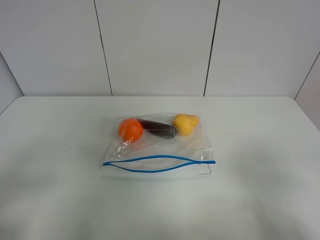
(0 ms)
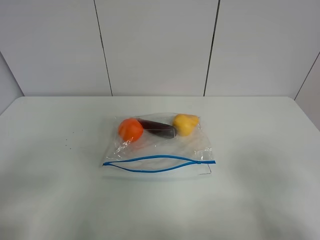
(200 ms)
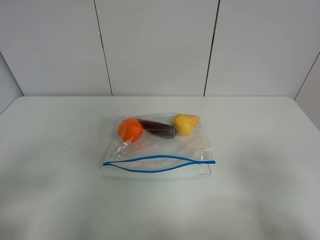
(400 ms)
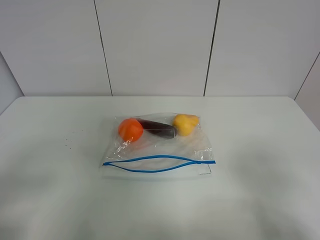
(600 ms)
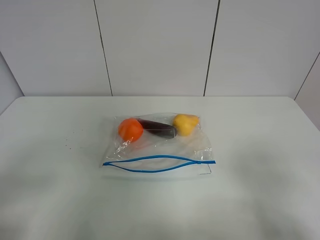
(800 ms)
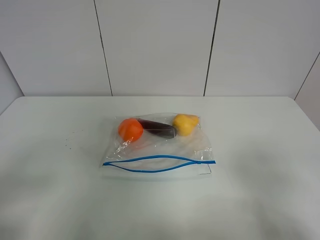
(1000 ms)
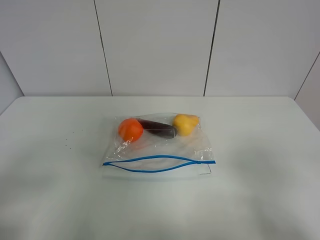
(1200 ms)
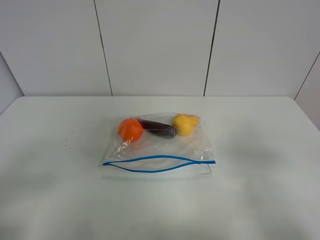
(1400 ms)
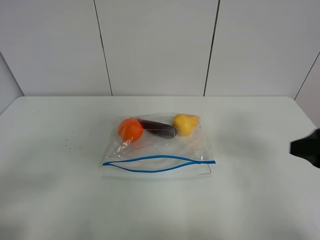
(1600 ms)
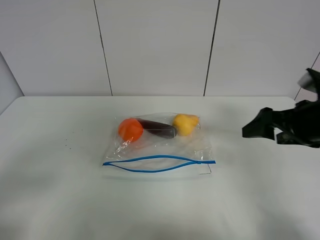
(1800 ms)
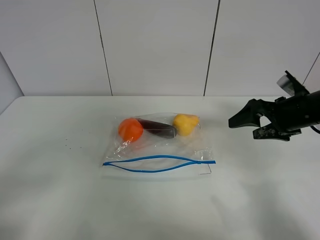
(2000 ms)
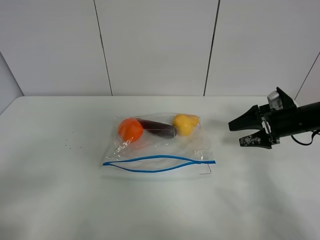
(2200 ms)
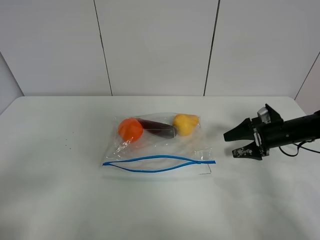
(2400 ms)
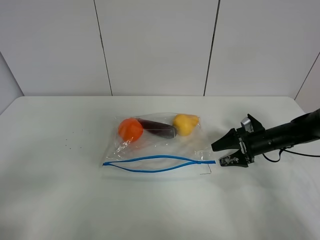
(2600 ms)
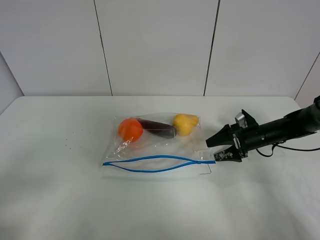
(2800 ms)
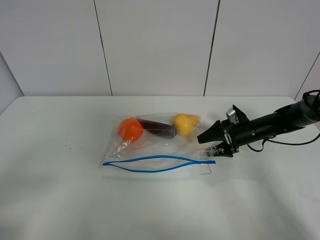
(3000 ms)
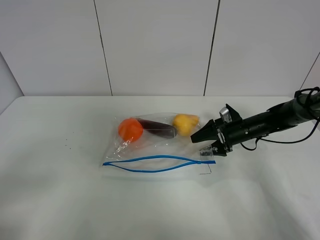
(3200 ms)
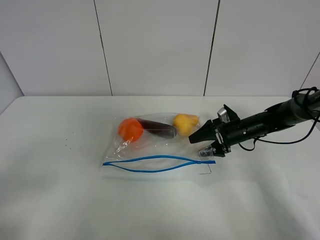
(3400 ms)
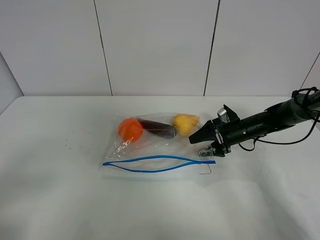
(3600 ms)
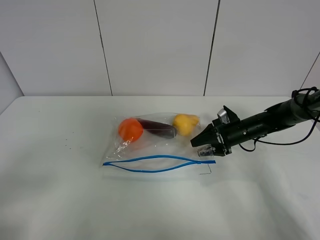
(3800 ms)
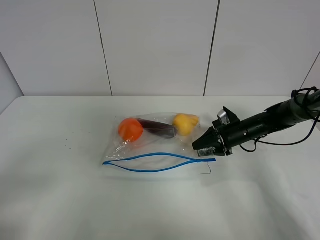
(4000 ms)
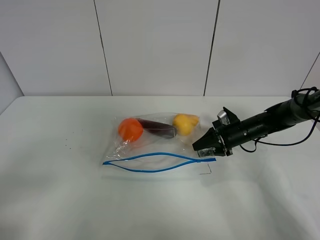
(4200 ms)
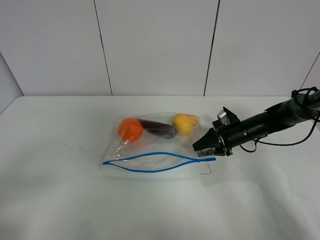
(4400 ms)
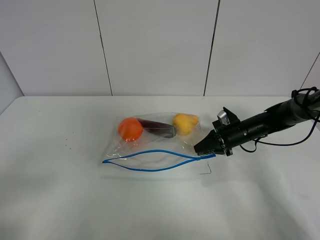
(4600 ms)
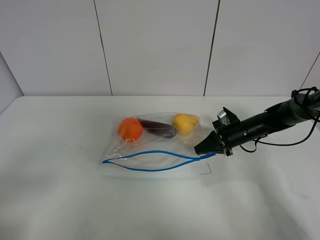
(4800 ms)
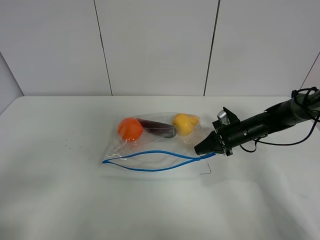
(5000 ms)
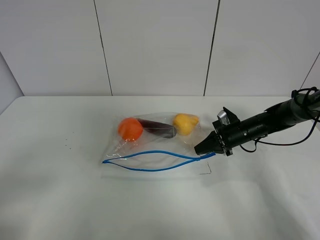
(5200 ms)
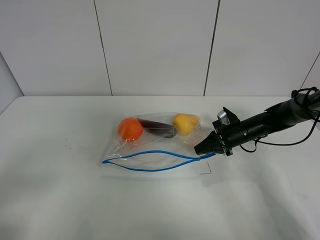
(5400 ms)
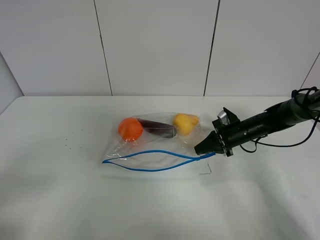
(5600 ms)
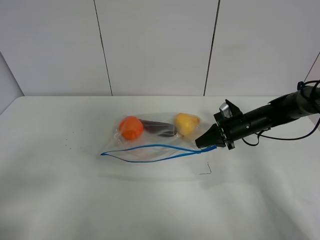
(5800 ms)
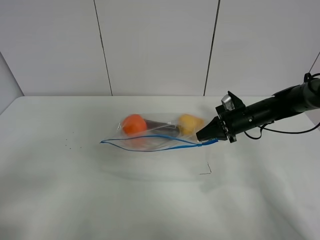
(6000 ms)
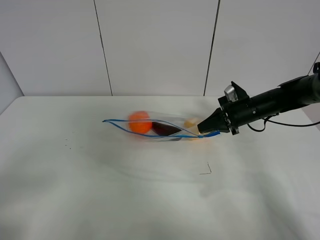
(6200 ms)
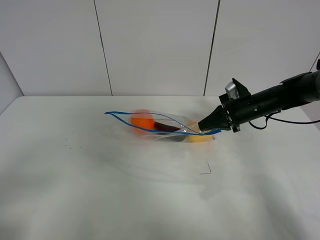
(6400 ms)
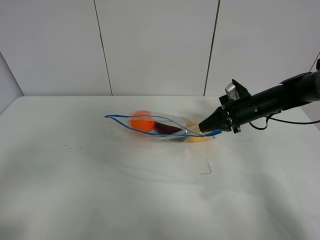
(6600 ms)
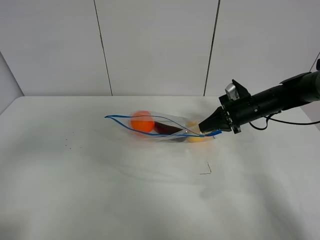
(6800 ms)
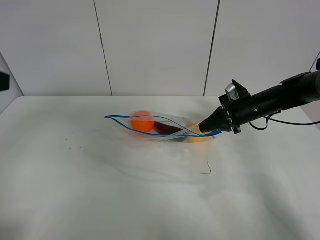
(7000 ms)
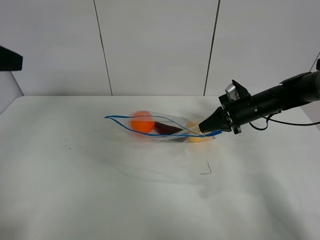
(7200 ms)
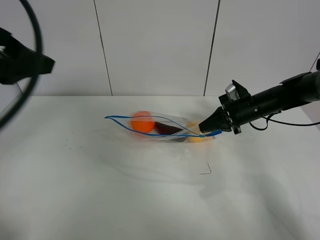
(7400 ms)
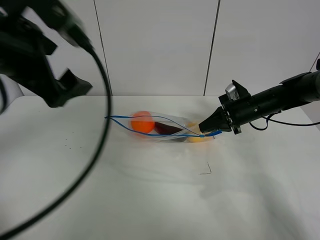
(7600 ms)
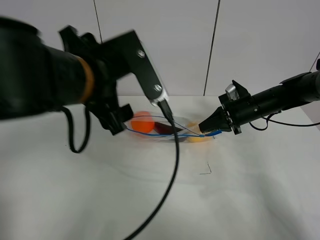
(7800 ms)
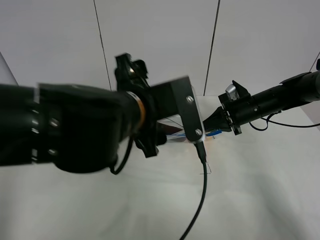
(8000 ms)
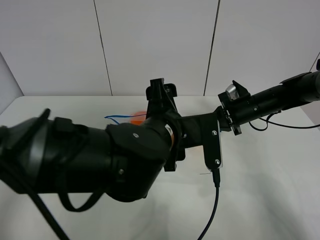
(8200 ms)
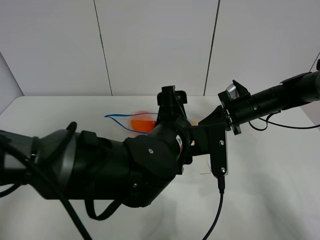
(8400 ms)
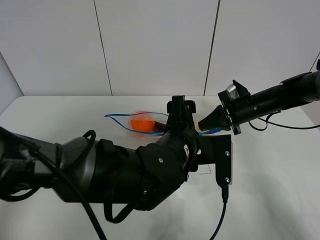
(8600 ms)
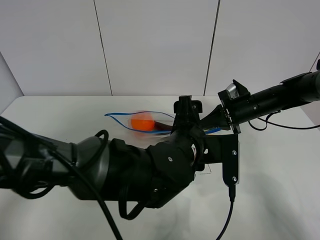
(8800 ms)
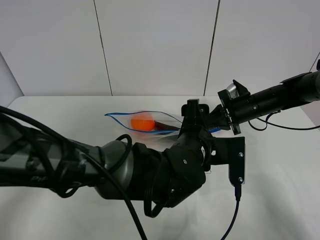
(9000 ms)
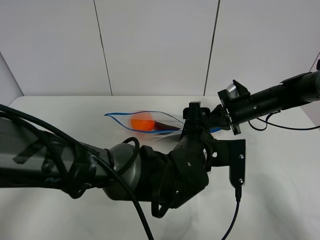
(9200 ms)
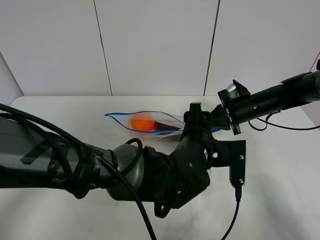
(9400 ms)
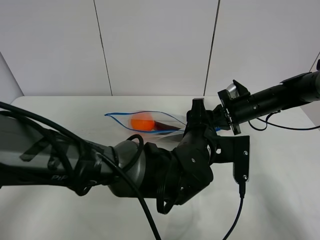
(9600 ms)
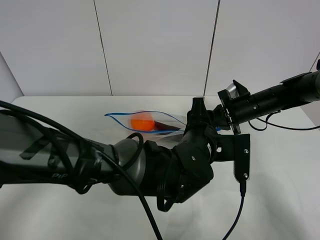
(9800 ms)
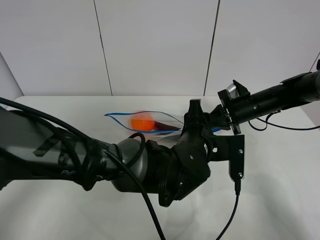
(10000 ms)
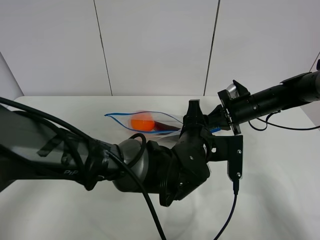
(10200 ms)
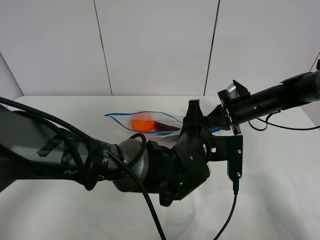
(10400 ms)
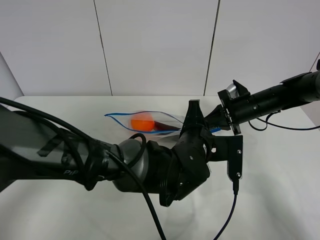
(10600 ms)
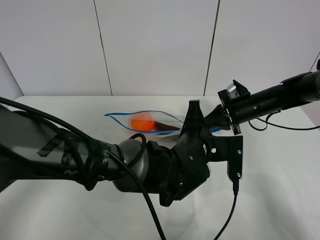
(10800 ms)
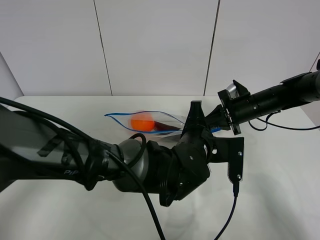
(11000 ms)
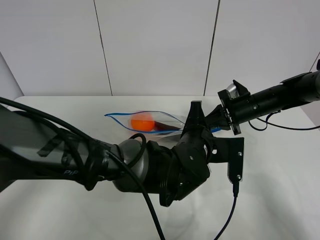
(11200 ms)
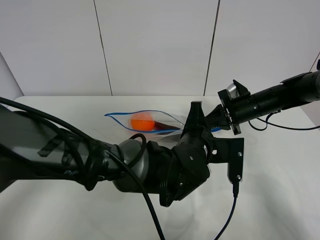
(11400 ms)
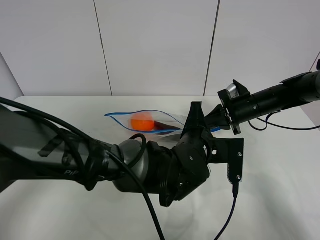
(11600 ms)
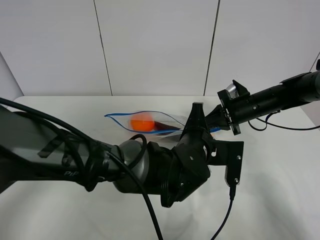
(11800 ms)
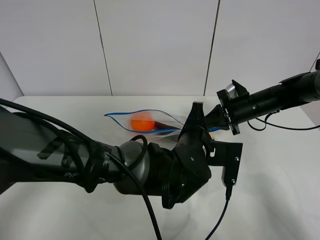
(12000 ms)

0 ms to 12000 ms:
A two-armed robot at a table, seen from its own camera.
Step, 0 ms to 4800 ms: Grasp the fruit bag with right gripper.
Step, 5000 ms to 6400 ms: Lift the fruit bag with your right gripper.
0 ms to 1600 ms: The right gripper shifts some 15 cm forward.
1600 ms to 3000 ms: The right gripper heads forward and downward, covering approximately 30 cm.
3000 ms to 4400 ms: The right gripper closes.
4400 ms to 6000 ms: The right gripper travels upward by about 5 cm, and closes its fingers.
6000 ms to 7600 ms: The left gripper heads forward, to the right and upward, covering roughly 25 cm.
7600 ms to 9000 ms: The left gripper travels to the right and downward by approximately 30 cm.
9000 ms to 10400 ms: The left gripper closes.
10400 ms to 12000 ms: The left gripper closes its fingers.

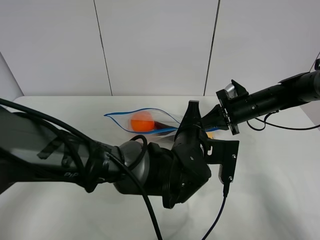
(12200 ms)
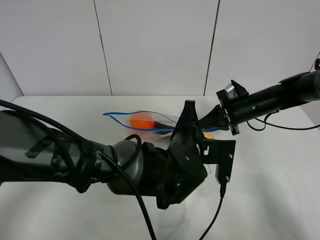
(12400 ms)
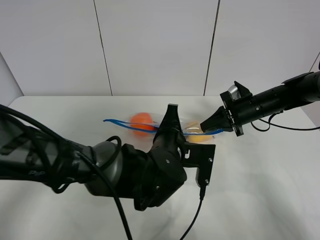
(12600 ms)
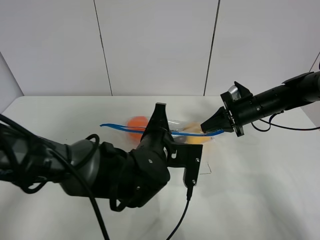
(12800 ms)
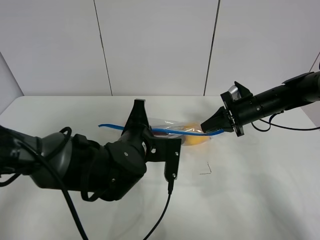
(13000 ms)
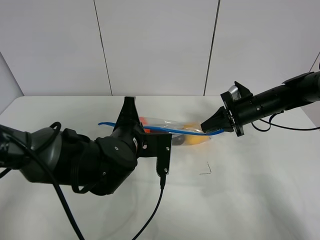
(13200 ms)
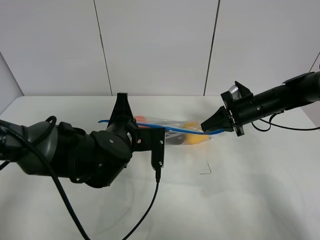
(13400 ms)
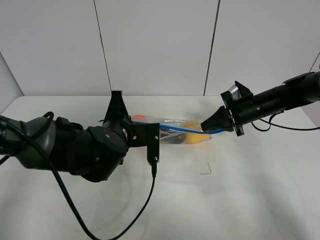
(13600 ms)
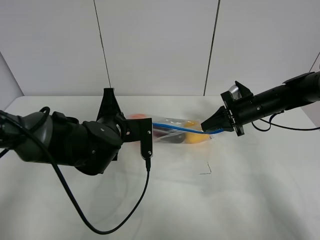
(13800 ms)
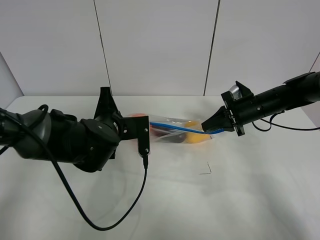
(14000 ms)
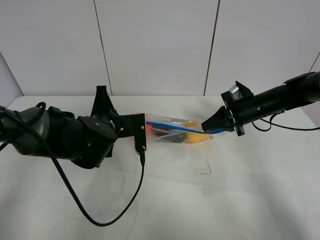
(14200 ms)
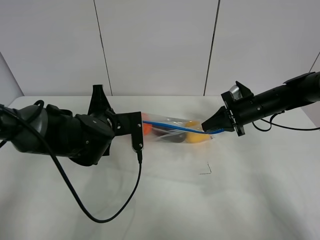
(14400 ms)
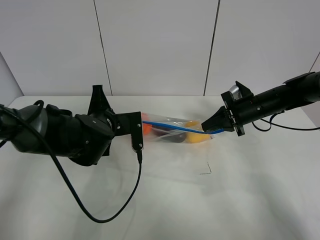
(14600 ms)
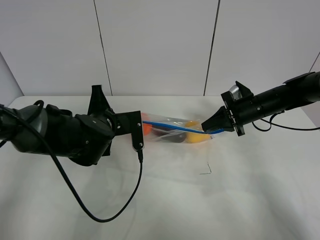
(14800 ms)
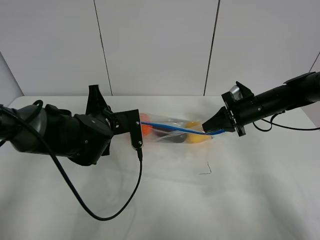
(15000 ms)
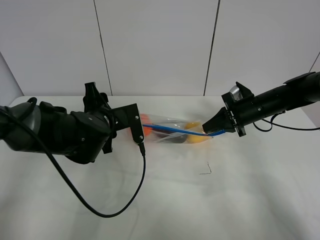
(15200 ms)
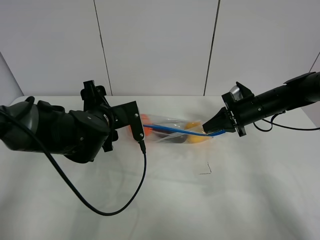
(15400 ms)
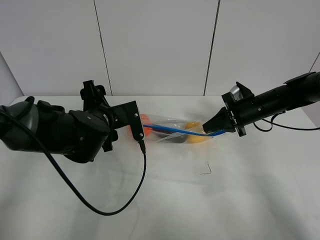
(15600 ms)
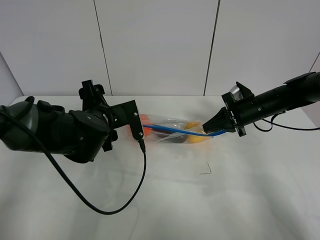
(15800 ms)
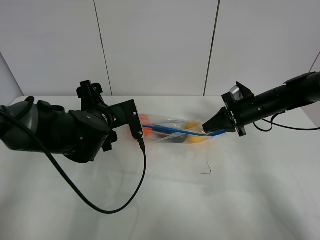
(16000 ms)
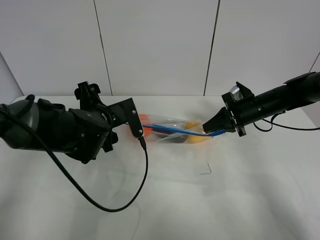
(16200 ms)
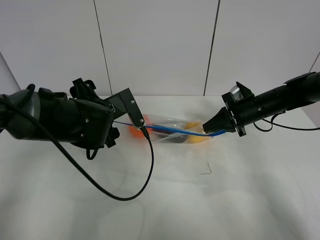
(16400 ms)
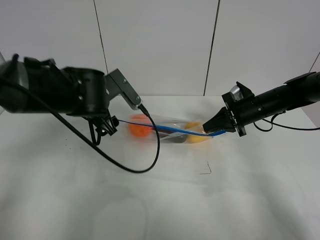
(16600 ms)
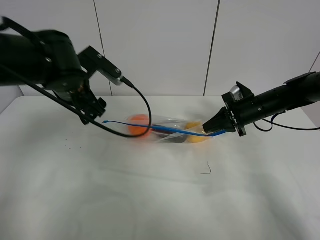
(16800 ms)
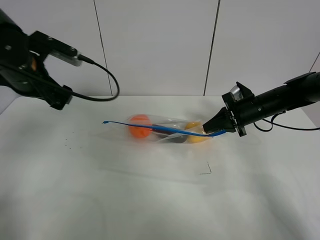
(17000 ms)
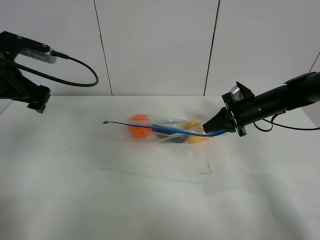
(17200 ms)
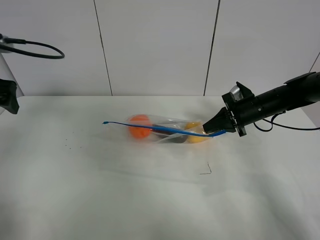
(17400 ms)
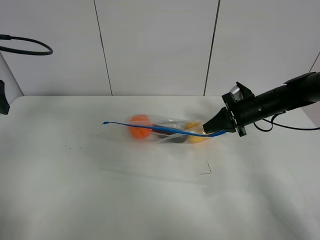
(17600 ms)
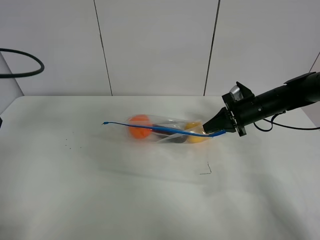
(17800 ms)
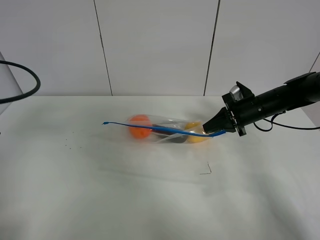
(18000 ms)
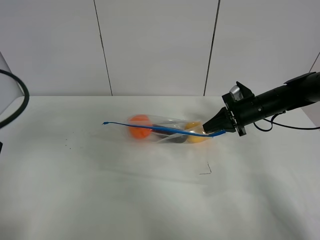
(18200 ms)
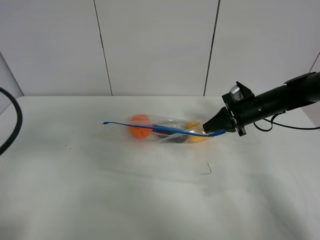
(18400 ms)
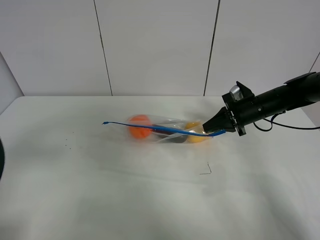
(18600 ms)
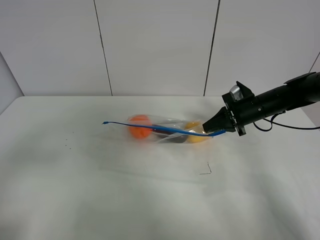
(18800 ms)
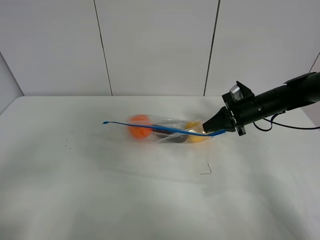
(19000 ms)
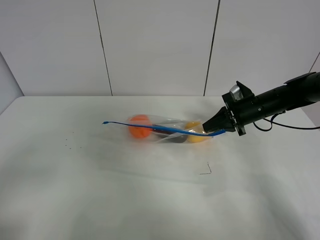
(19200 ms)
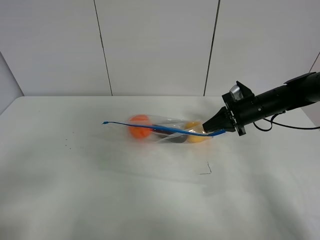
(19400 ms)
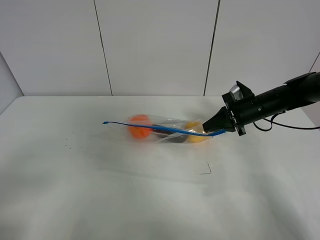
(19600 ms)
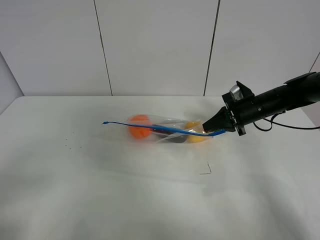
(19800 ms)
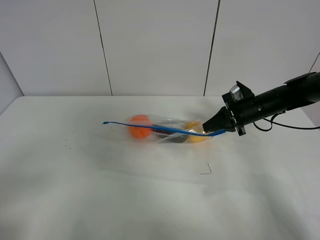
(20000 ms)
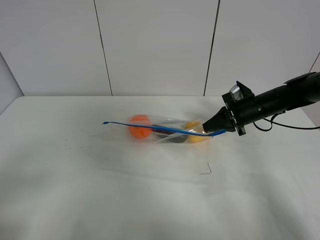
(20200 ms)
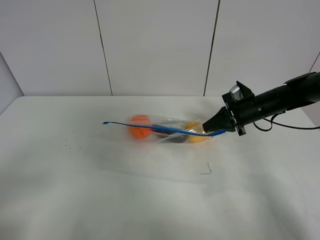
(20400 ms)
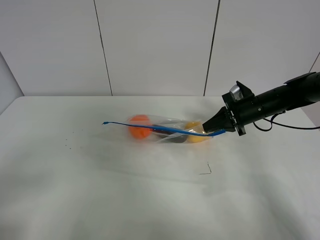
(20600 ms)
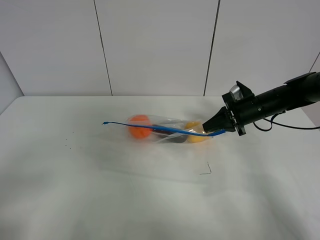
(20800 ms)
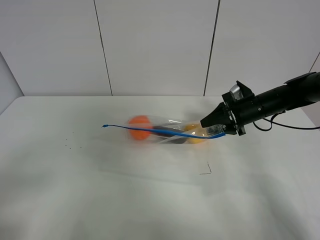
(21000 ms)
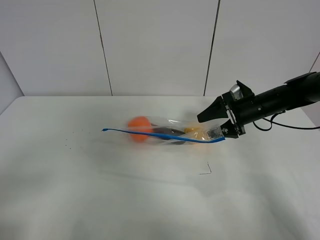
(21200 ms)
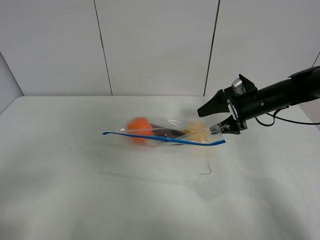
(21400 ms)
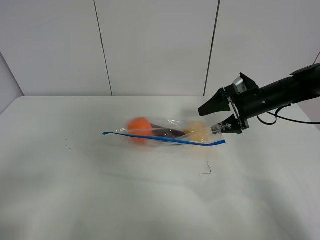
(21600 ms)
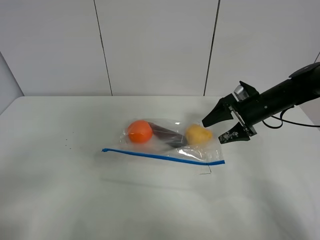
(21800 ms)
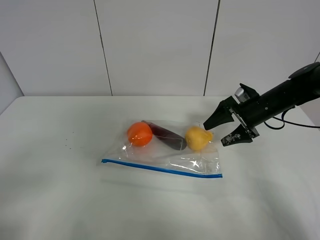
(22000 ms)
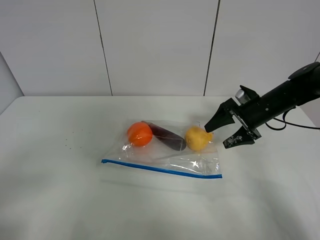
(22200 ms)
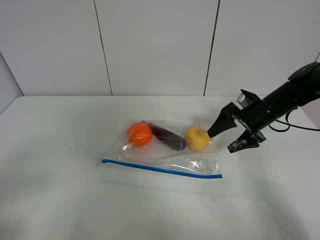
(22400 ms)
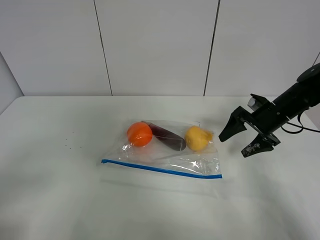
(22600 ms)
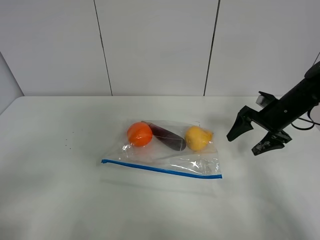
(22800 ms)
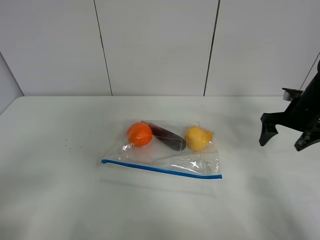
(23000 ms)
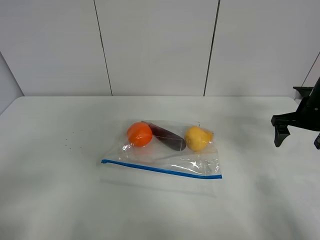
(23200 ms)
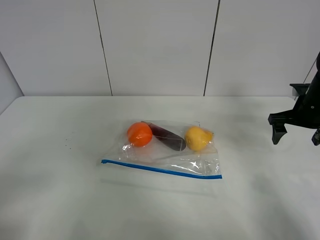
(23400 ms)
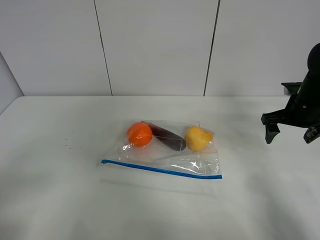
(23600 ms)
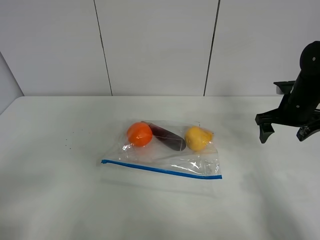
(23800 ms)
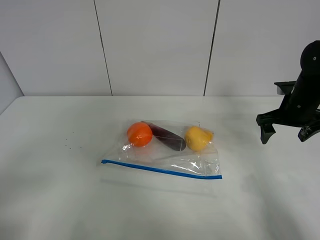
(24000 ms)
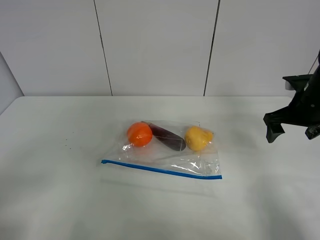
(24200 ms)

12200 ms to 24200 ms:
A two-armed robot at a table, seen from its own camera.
Step, 12200 ms to 16800 ms: Pull the fruit bag with left gripper.
12200 ms to 13800 ms: The left gripper travels to the left by some 15 cm.
13800 ms to 15200 ms: The left gripper opens its fingers.
15200 ms to 16600 ms: The left gripper moves upward, roughly 5 cm.
16600 ms to 18200 ms: The left gripper shifts roughly 25 cm to the left, backward and upward.
18200 ms to 19800 ms: The left gripper moves backward, about 15 cm.
19800 ms to 21200 ms: The right gripper opens its fingers.
22600 ms to 24200 ms: The right gripper goes roughly 5 cm upward.
